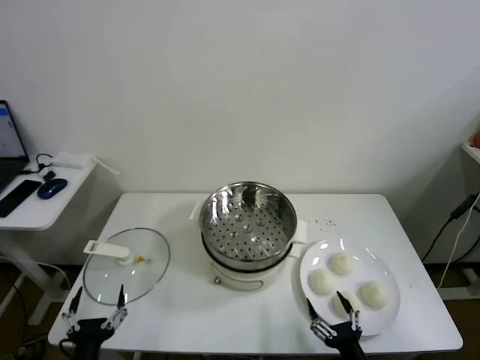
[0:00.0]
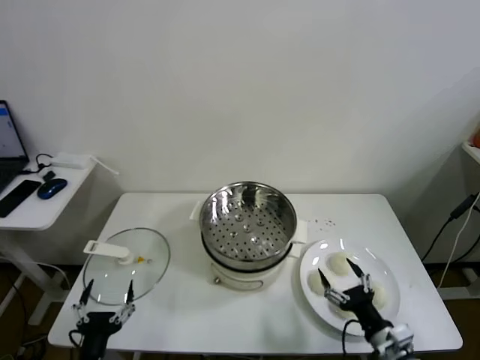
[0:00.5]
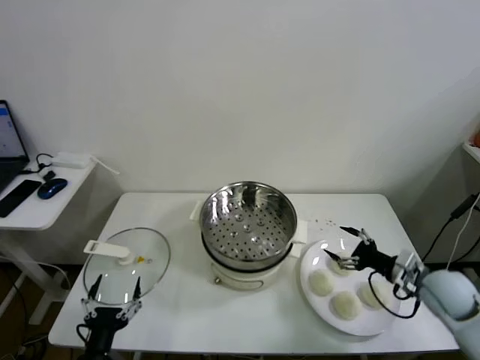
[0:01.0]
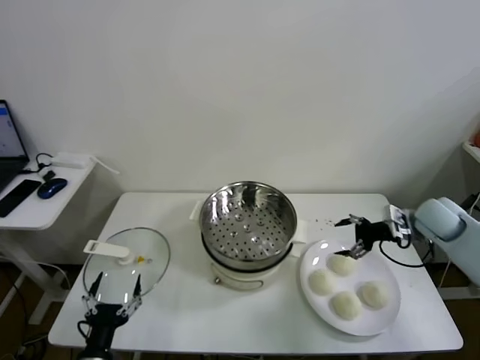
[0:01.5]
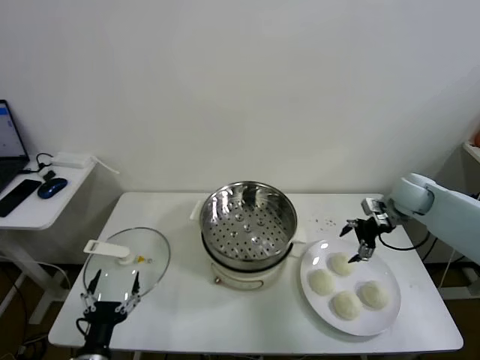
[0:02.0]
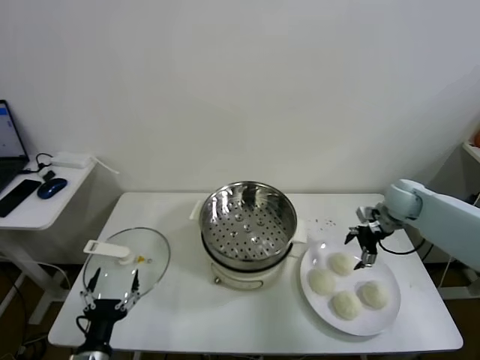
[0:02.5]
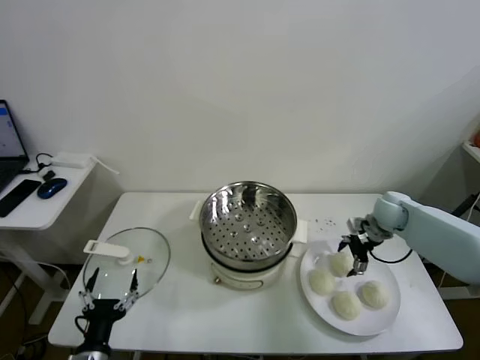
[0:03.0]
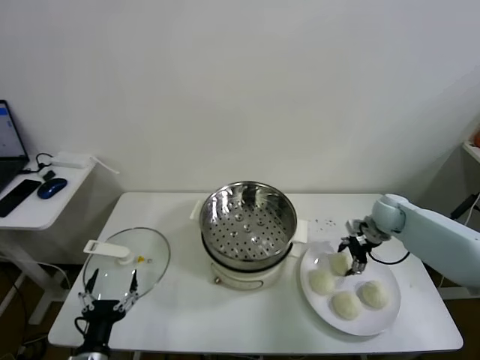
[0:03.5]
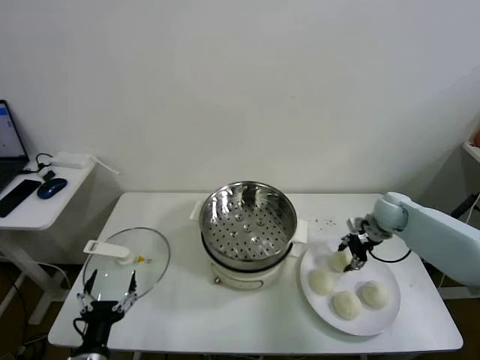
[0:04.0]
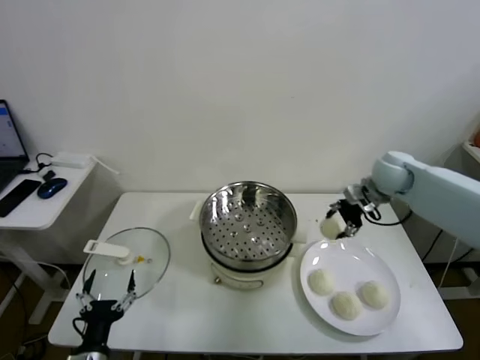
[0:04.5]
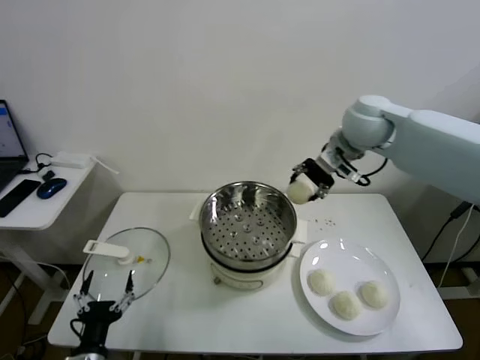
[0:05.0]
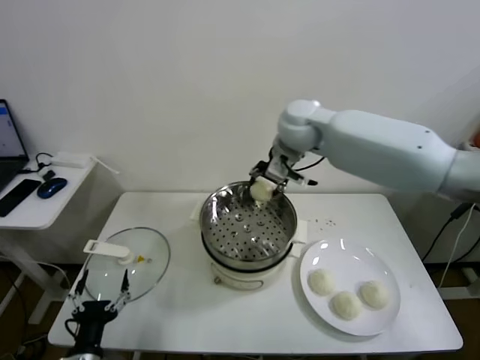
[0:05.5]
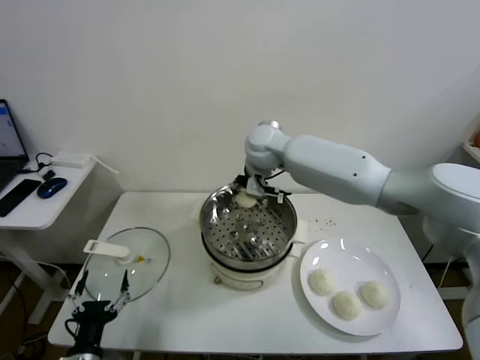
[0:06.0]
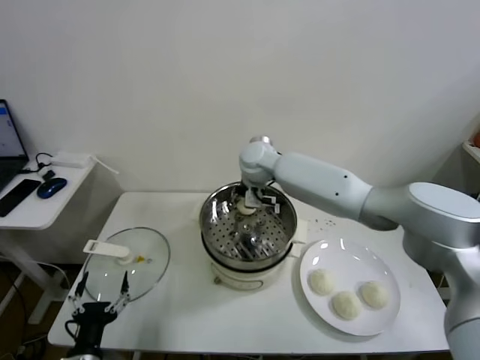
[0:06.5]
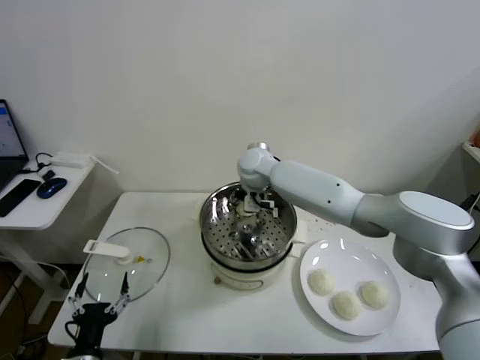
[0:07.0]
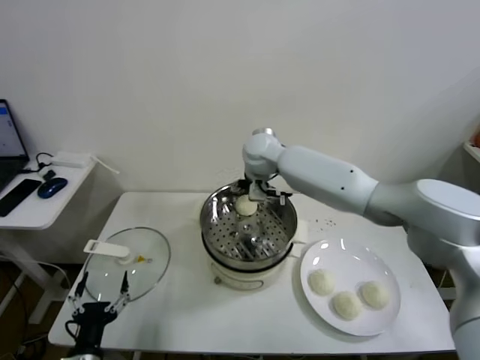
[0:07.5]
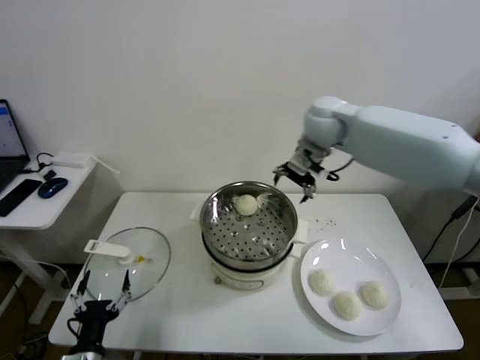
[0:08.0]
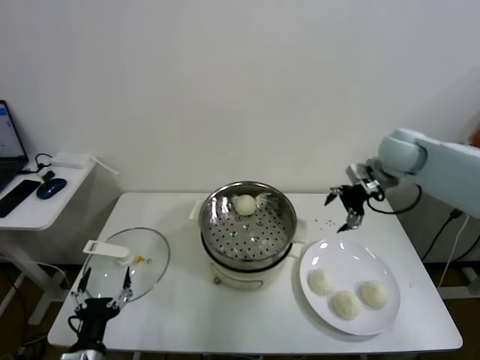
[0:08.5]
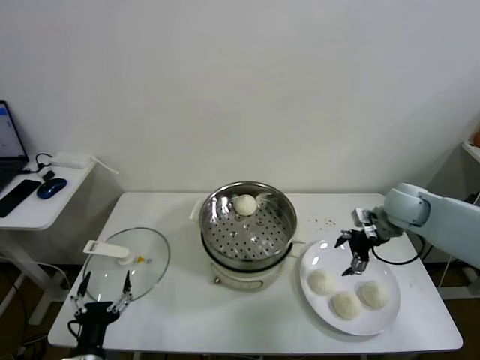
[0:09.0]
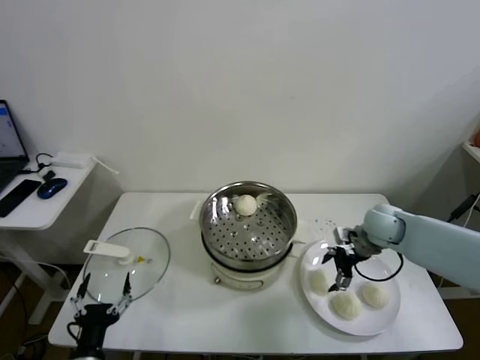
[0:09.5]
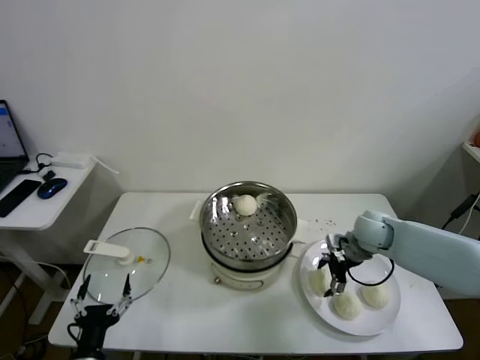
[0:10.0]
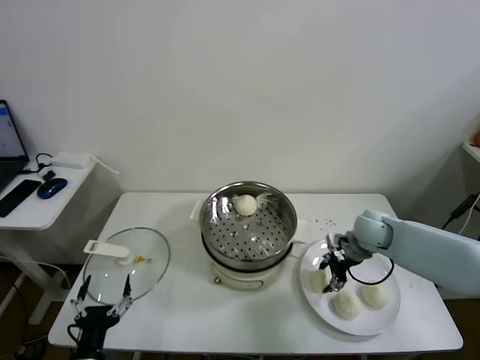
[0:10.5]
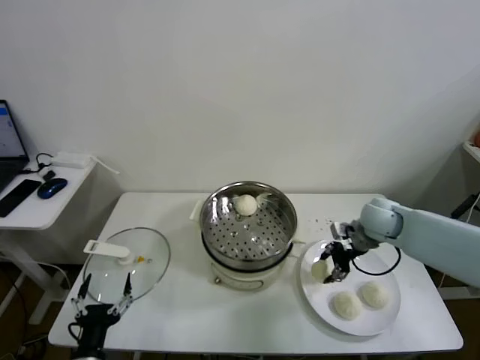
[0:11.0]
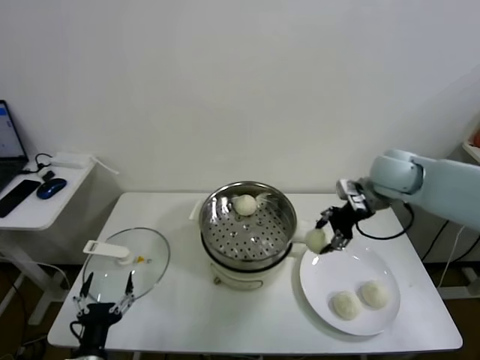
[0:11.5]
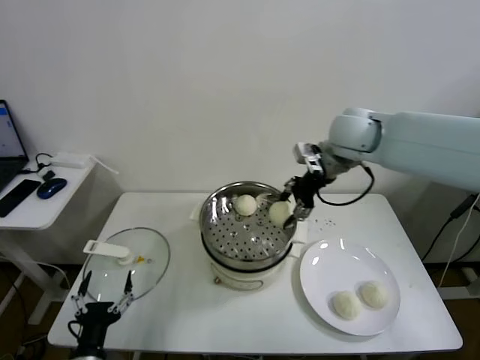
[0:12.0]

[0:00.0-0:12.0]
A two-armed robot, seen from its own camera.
Task of the whole recording: take steamed baozi put them in steamer.
Step, 0.0 to 3.5 s: Grasp the baozi in the plate with right gripper.
Step, 4.0 to 7.0 s: Place the baozi on the steamer with right gripper.
Step, 7.5 to 10.0 s: Grasp the baozi in the plate with right gripper.
2.0 to 4.0 s: The right gripper travels downward by approximately 5 cm, and closes.
4.0 to 6.0 s: The right gripper shifts about 40 cm to the left and upward.
6.0 to 8.0 s: The right gripper shifts about 20 cm to the right and upward, and opens up.
8.0 to 10.0 s: The right gripper is displaced downward and to the right by roughly 30 cm.
10.0 to 12.0 s: The right gripper is displaced upward and to the left by some 30 cm, and closes up.

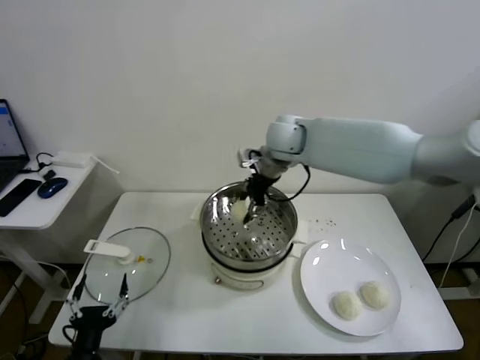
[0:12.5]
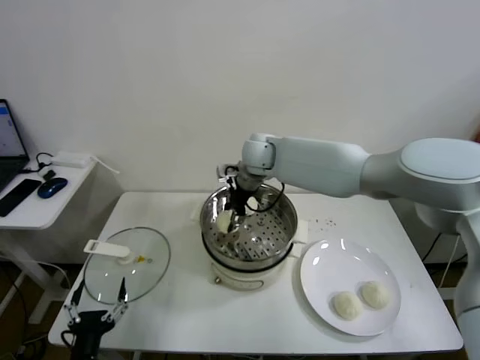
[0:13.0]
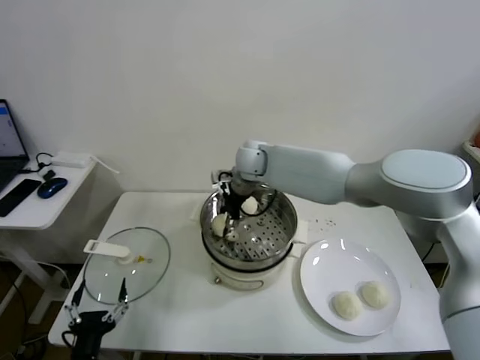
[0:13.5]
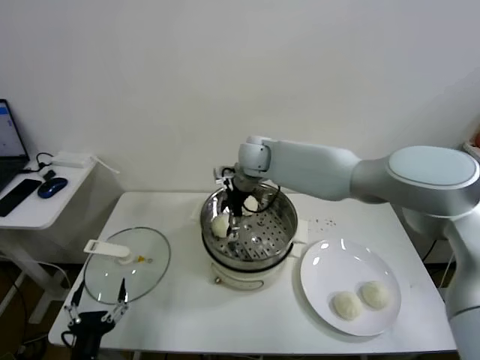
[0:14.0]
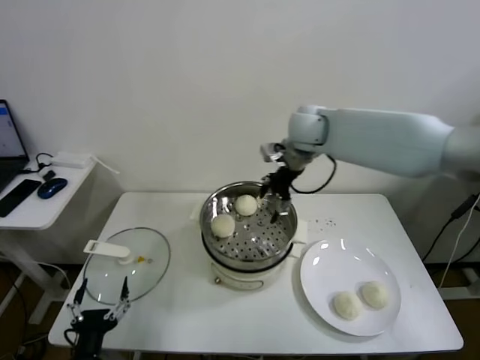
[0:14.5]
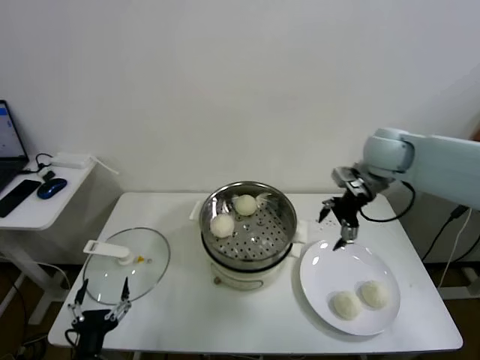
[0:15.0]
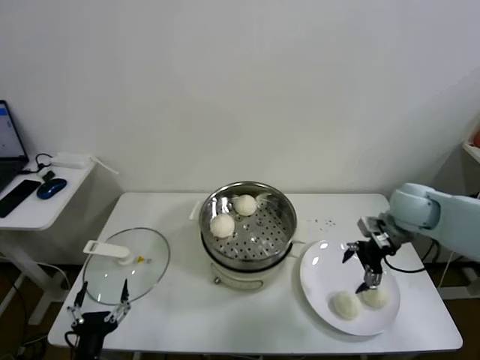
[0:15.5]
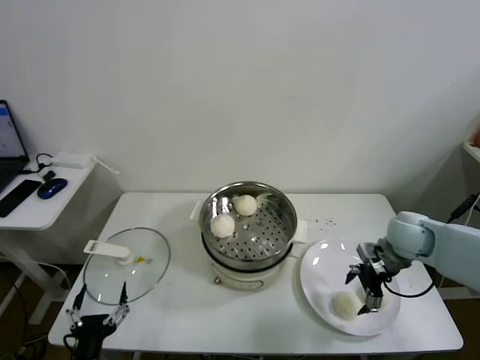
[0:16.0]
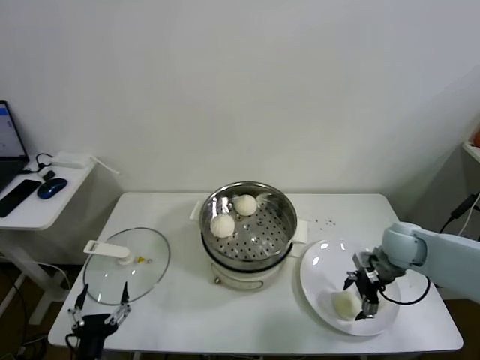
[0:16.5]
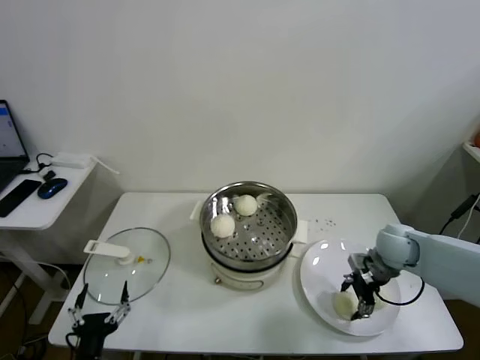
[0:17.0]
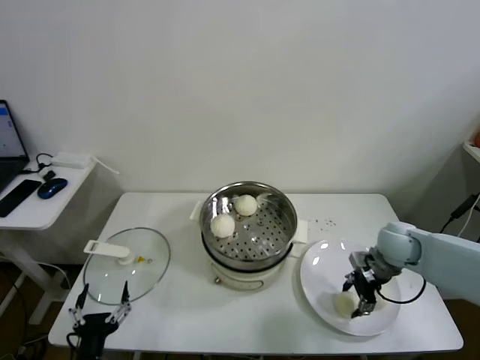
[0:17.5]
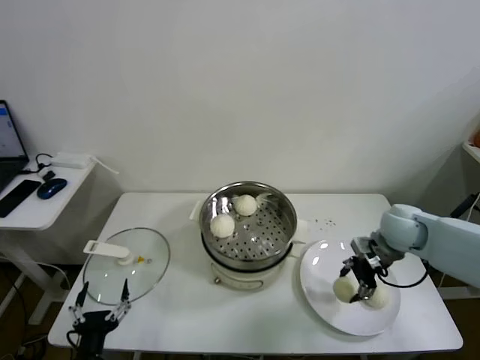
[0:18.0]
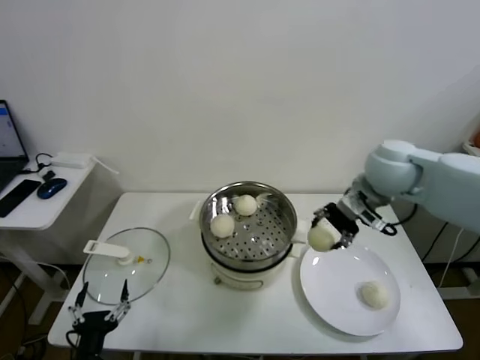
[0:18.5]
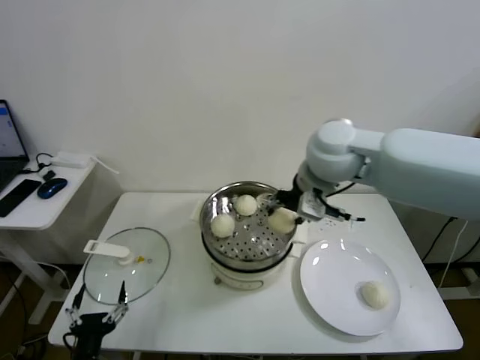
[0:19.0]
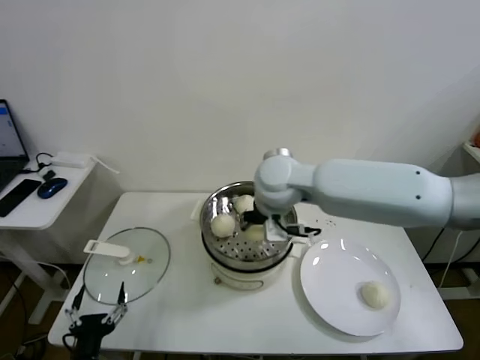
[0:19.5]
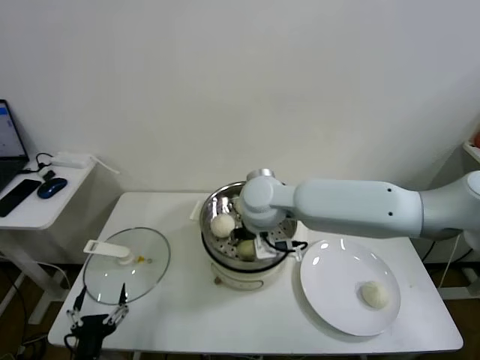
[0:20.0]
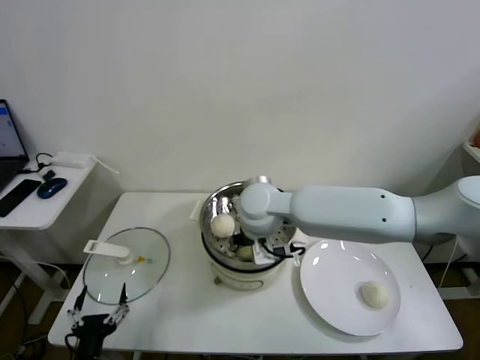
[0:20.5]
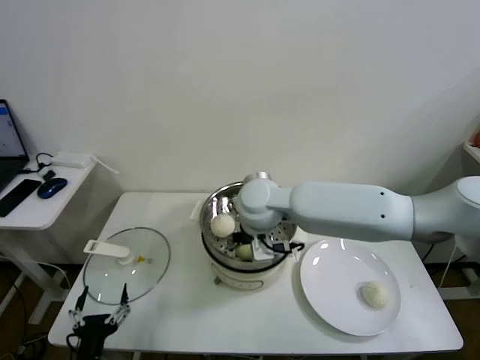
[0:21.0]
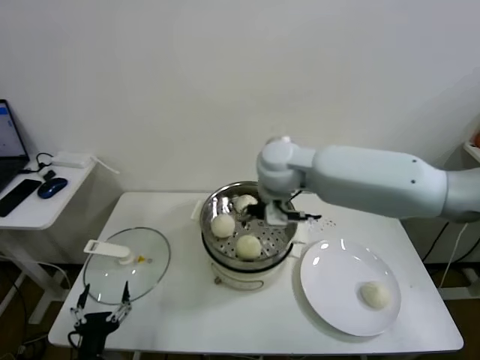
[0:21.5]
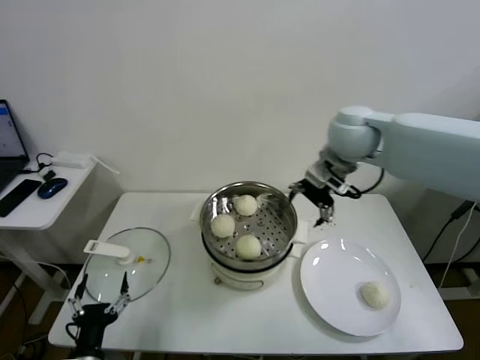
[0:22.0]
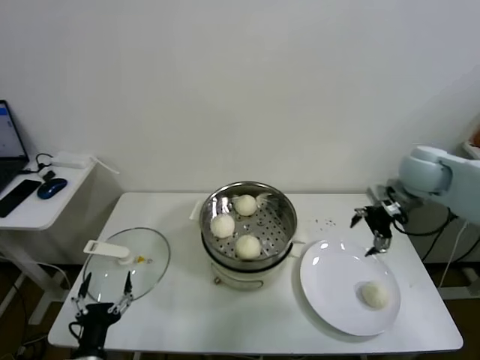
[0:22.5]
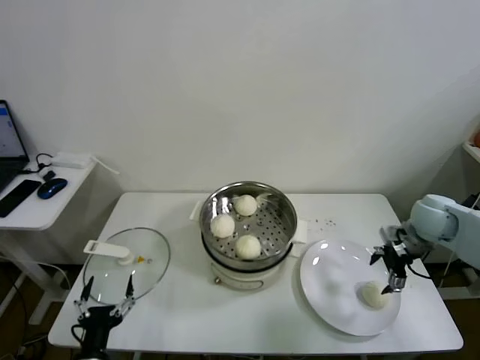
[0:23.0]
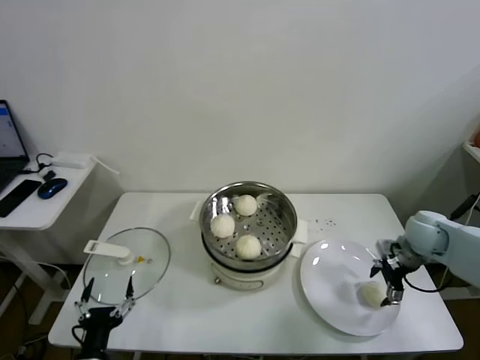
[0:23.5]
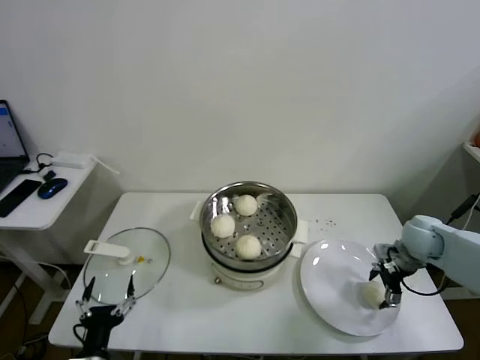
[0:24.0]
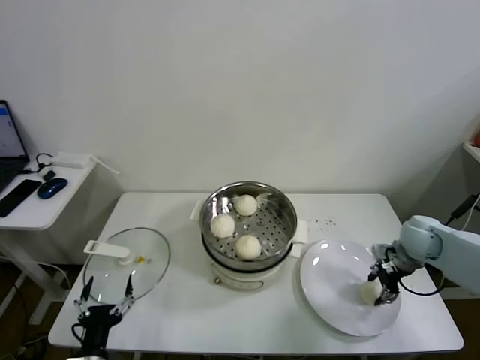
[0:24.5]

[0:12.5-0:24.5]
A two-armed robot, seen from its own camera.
Task of the whole recording: take steamed baozi put them in steamer.
Step, 14.5 to 17.0 s: Grasp the baozi in the plate with right gripper.
Step, 17.5 to 21.0 s: Place the baozi on the steamer with right gripper.
Step, 21.5 to 24.0 s: Grasp the baozi in the plate with right gripper.
12.5 to 14.5 s: The right gripper shifts approximately 5 cm to the right, and opens up.
14.5 to 16.5 s: The right gripper travels downward, to the right and backward by approximately 35 cm.
16.5 to 18.5 s: The right gripper goes some 25 cm upward and to the left, and closes its fingers.
18.5 to 20.5 s: The right gripper heads to the left, covering some 25 cm.
20.5 to 22.5 s: The right gripper shifts roughly 35 cm to the right, and opens.
22.5 to 24.5 s: The right gripper shifts some 15 cm downward, and closes up.

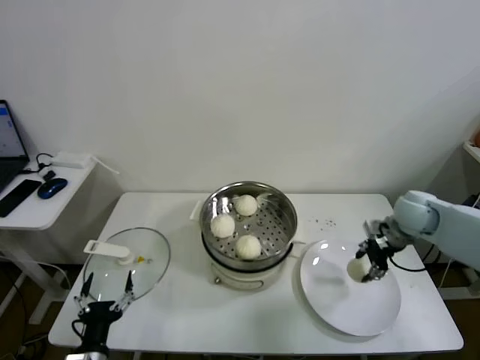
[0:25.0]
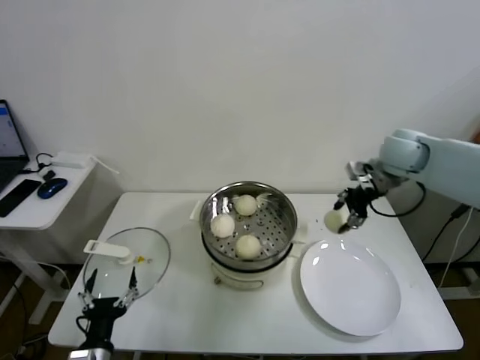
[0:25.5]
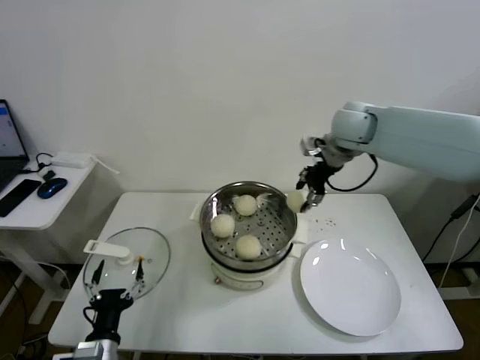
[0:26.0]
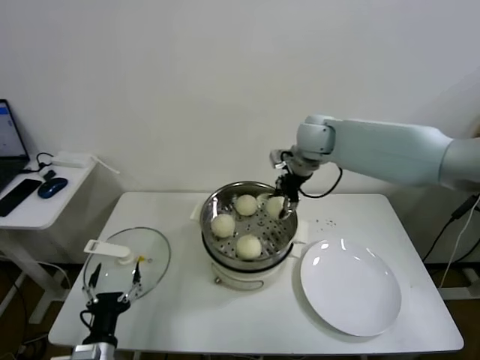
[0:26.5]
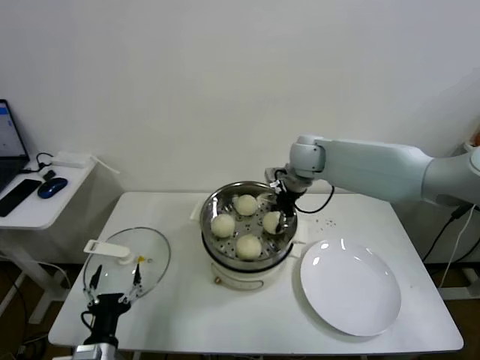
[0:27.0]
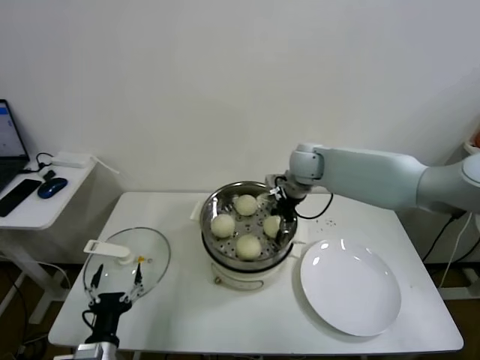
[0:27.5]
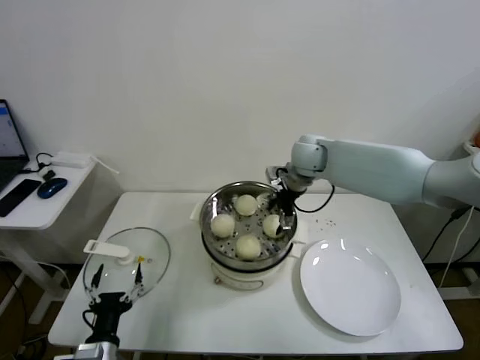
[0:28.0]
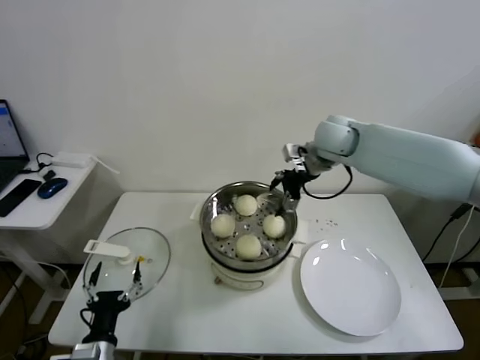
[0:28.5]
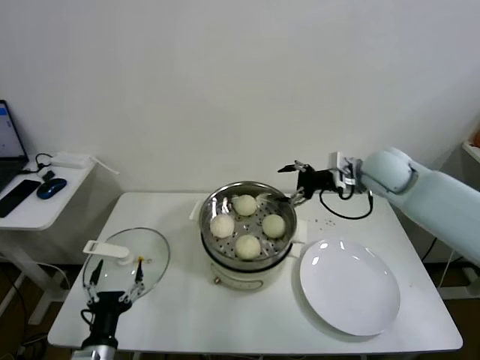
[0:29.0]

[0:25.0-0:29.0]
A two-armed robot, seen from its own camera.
Task of the whole recording: take steamed baozi put them in steamer.
Step, 25.0 to 28.0 s: Place the baozi on the steamer with right gripper.
25.0 to 27.0 s: The right gripper goes approximately 25 cm to the left and forward.
27.0 to 29.0 s: The right gripper shifts some 15 cm to the right and backward, and opens its fingers.
